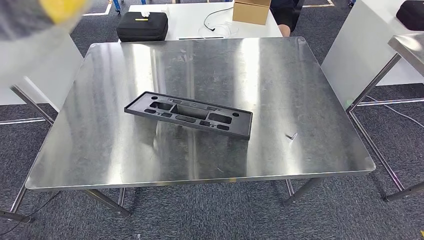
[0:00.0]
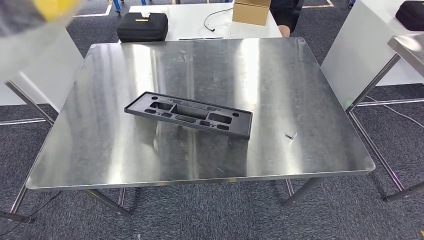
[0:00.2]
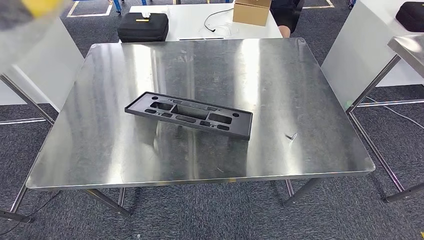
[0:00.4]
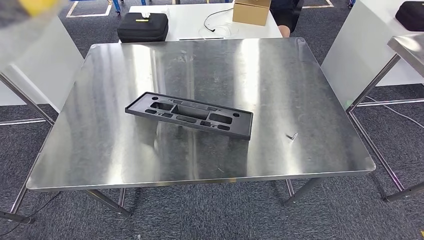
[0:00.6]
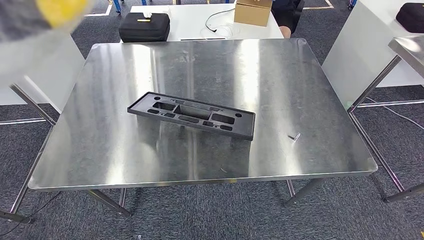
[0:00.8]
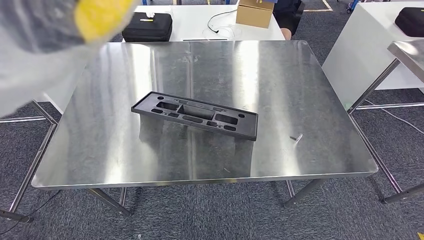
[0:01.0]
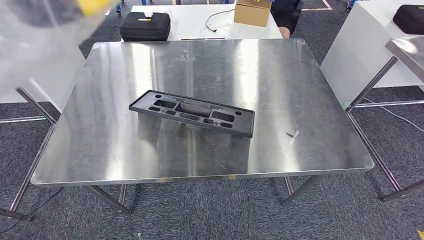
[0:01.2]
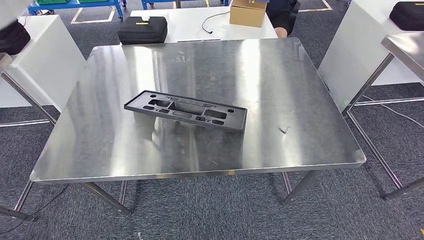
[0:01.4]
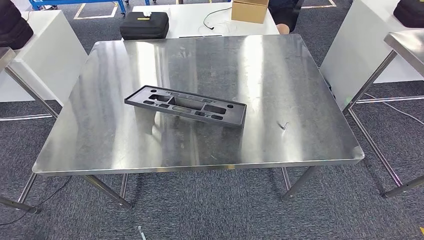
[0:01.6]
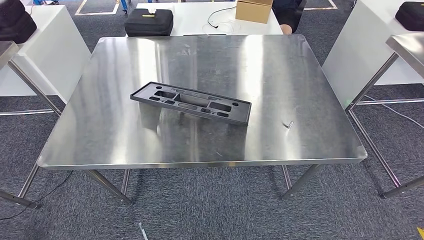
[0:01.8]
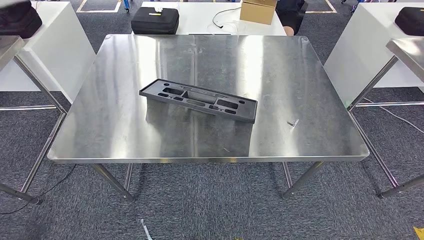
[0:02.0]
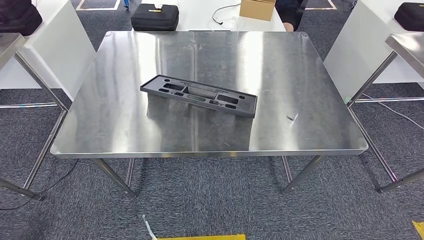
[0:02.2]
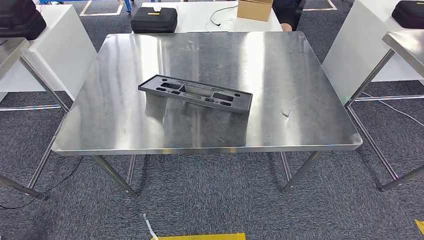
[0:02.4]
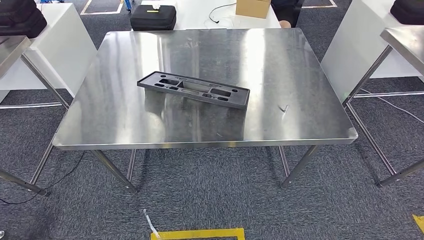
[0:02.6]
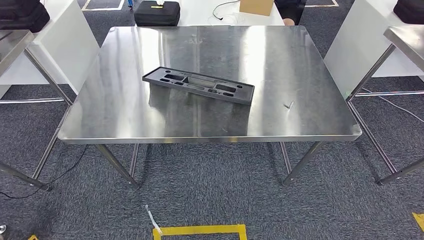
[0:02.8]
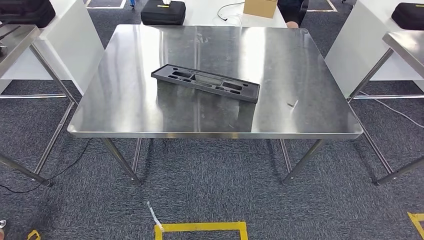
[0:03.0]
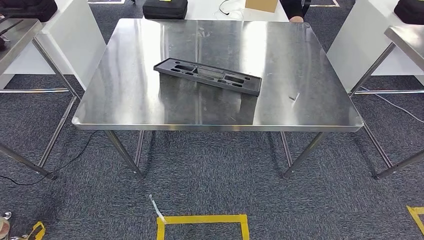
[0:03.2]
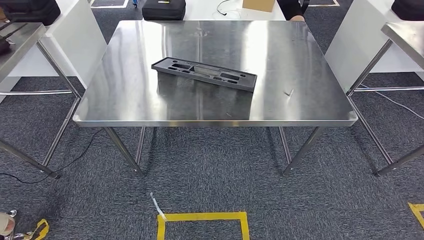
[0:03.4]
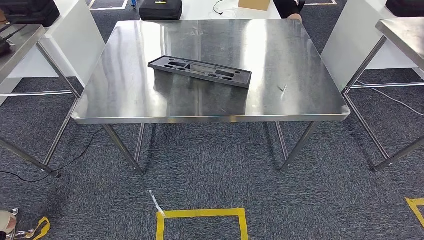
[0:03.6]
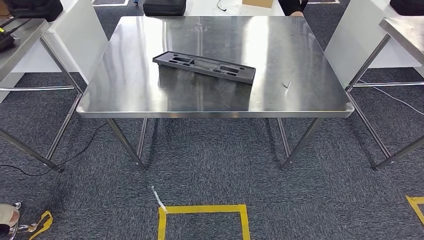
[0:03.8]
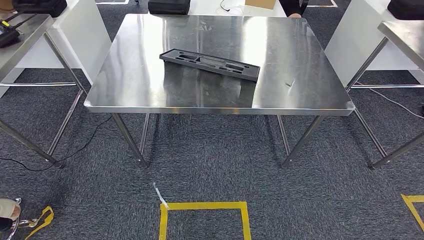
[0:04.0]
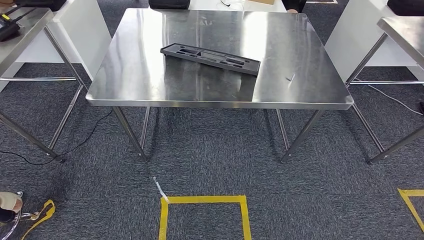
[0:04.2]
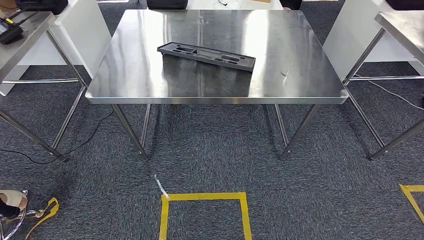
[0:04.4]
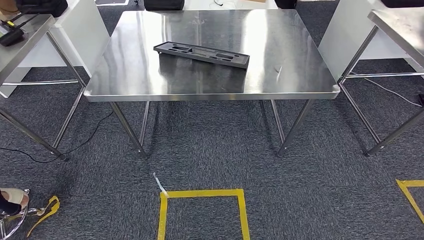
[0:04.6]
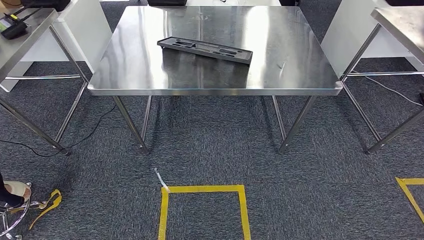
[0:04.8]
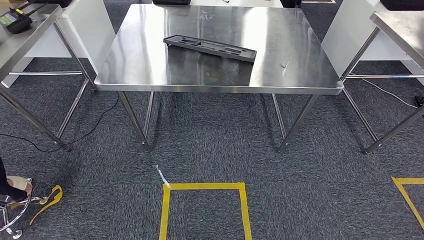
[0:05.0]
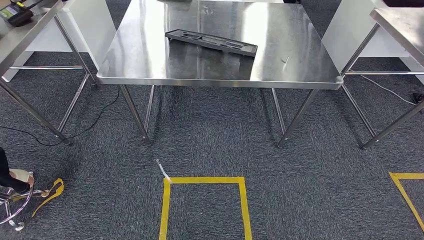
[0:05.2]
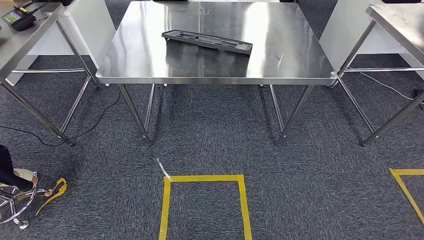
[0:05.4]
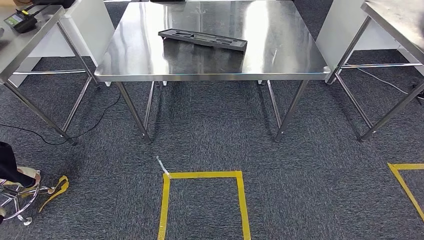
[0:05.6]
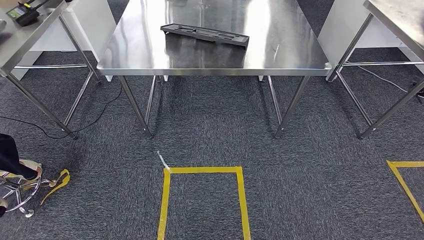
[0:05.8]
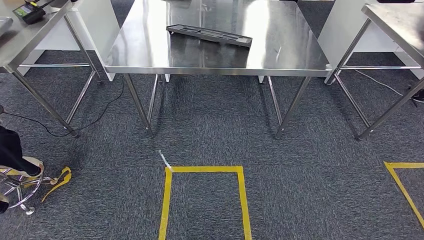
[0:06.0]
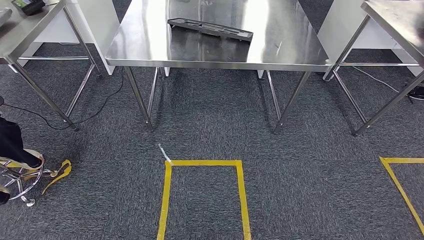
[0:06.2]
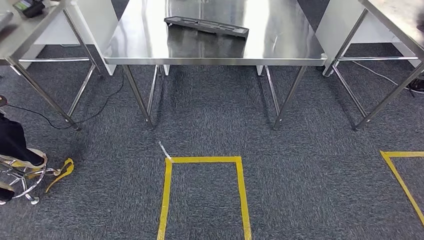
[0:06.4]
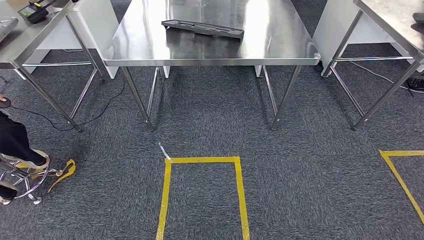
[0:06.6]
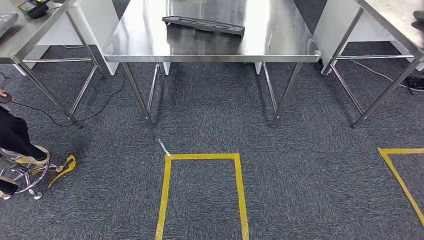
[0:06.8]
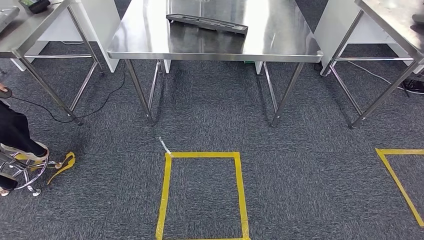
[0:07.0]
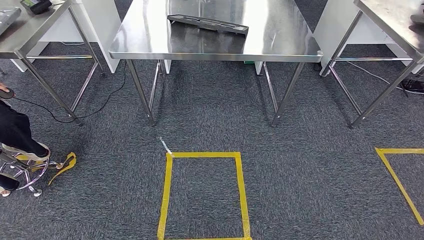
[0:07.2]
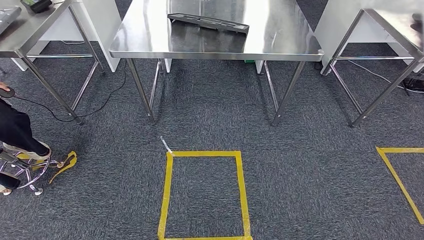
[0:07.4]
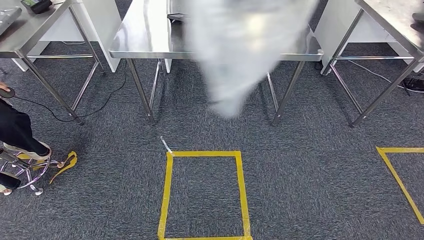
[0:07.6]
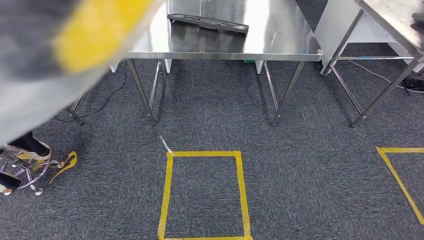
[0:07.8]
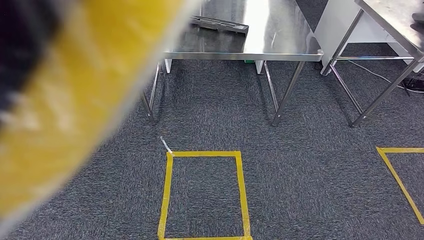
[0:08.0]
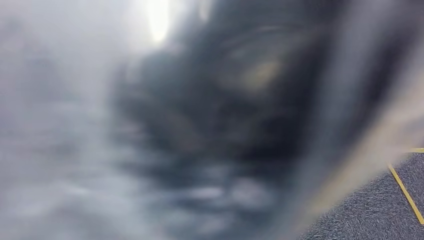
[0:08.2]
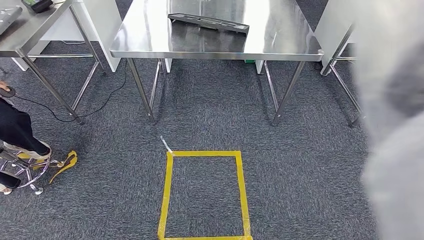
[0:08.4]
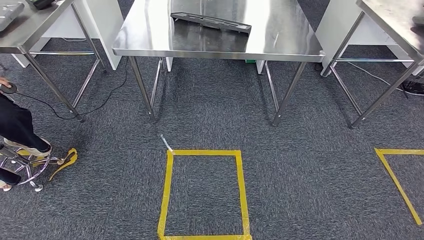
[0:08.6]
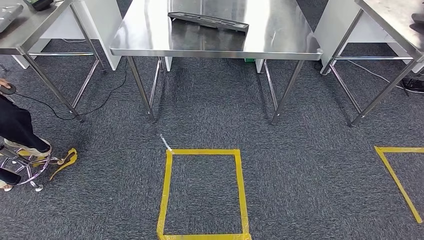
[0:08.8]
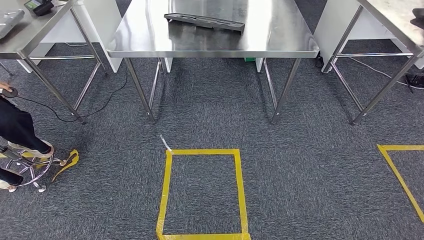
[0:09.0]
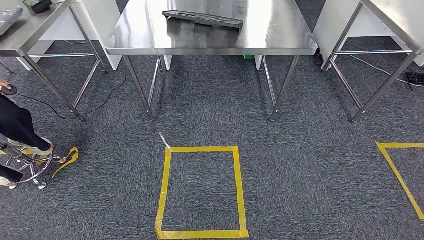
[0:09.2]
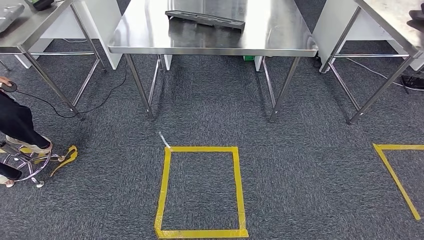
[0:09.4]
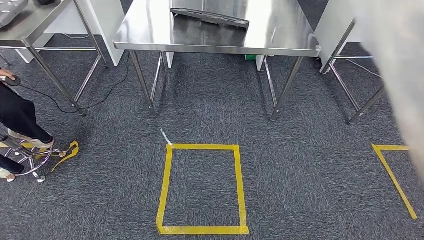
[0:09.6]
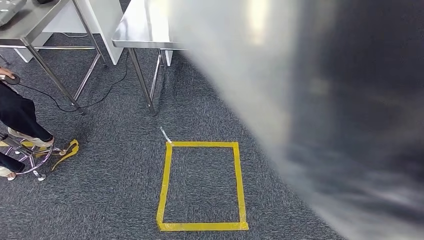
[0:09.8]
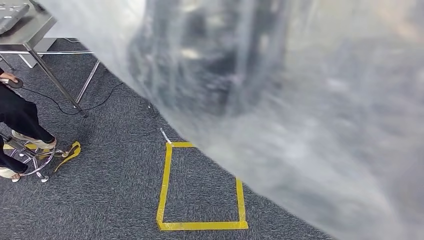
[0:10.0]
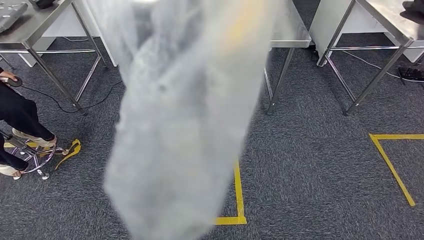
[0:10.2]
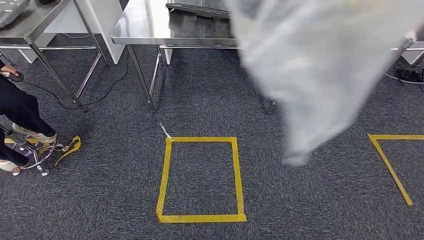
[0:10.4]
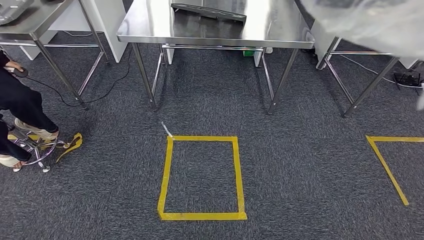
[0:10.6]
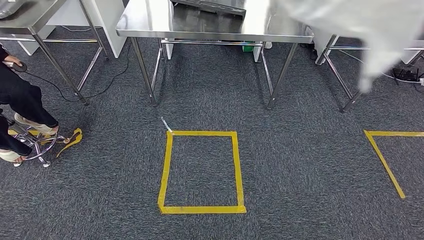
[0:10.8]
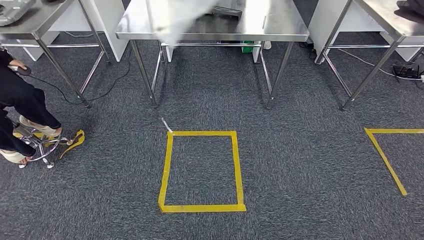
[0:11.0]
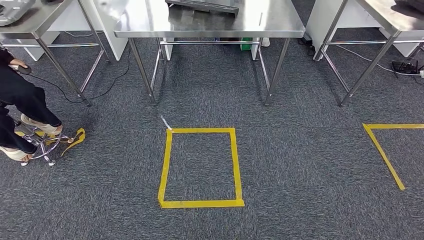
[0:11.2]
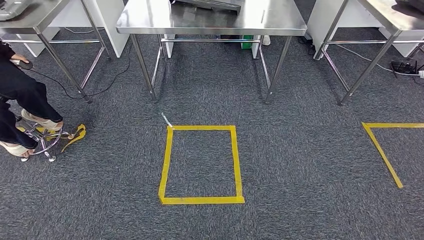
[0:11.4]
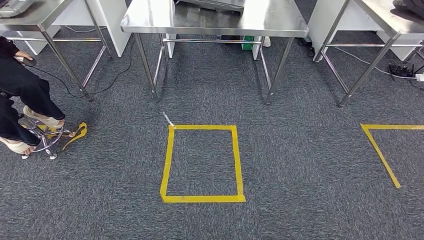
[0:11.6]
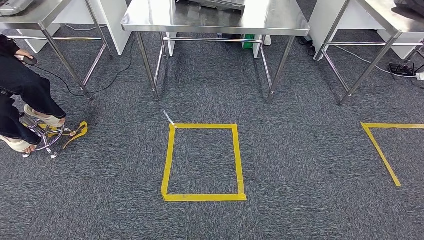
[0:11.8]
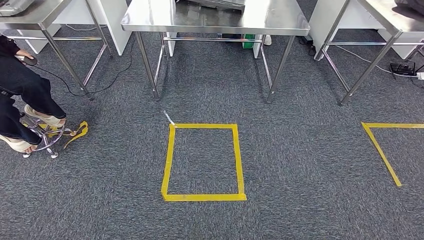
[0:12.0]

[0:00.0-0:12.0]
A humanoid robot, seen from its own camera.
Step, 0:00.0 to 0:05.2: Insert the large material into the corresponding slot on the workbench.

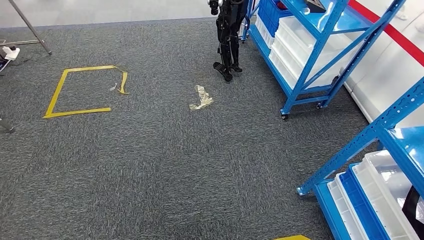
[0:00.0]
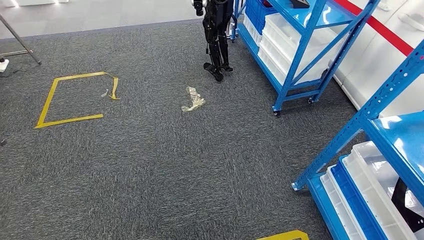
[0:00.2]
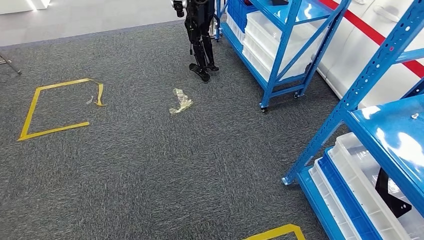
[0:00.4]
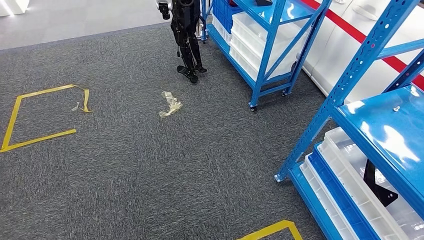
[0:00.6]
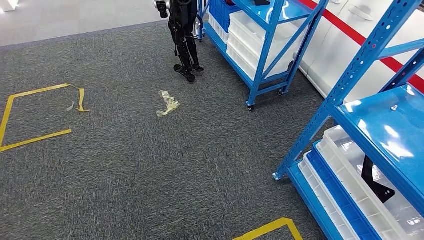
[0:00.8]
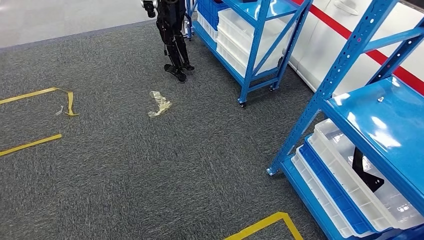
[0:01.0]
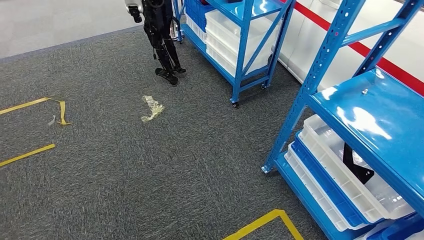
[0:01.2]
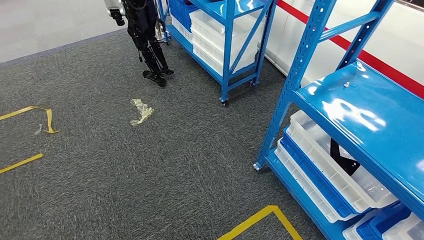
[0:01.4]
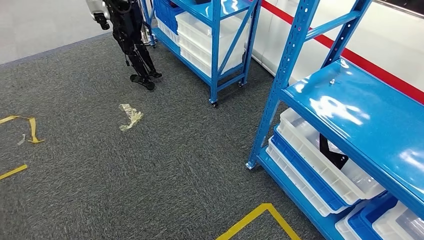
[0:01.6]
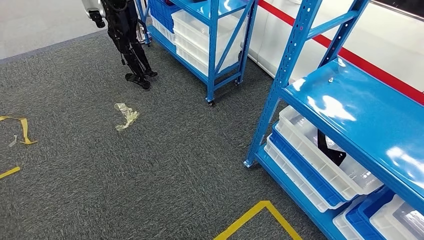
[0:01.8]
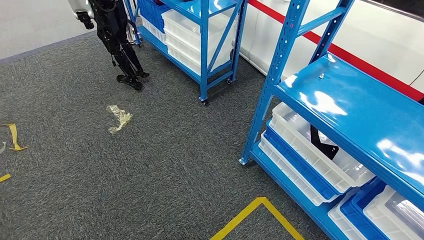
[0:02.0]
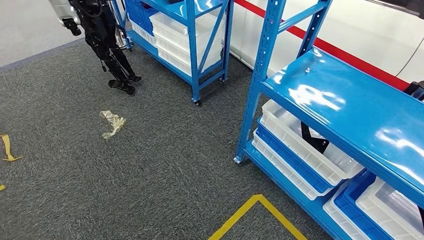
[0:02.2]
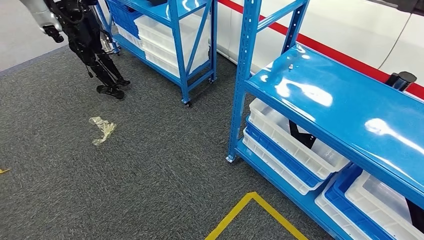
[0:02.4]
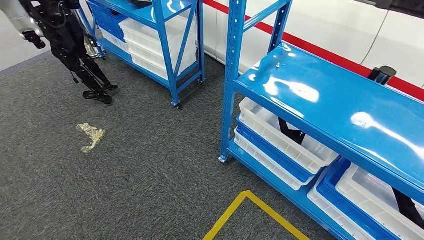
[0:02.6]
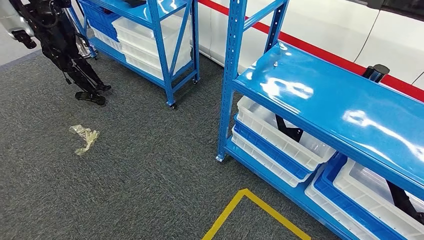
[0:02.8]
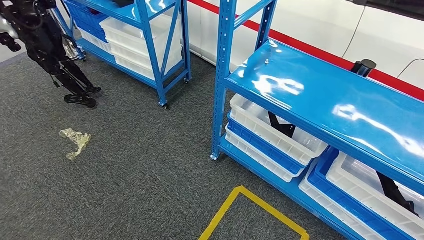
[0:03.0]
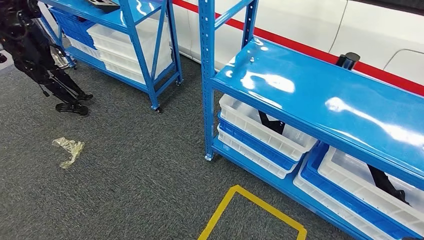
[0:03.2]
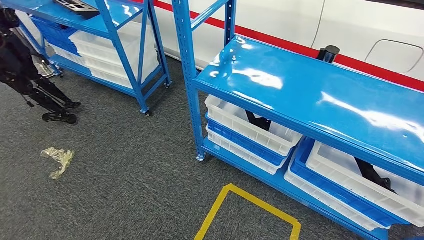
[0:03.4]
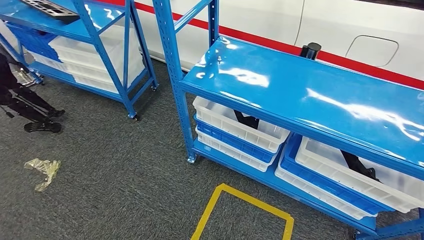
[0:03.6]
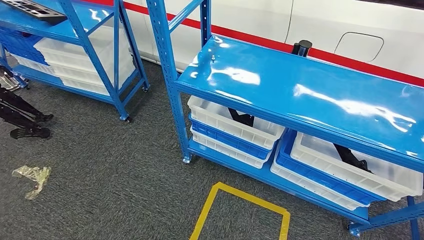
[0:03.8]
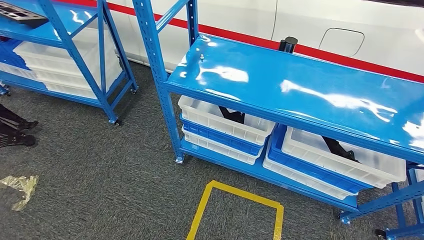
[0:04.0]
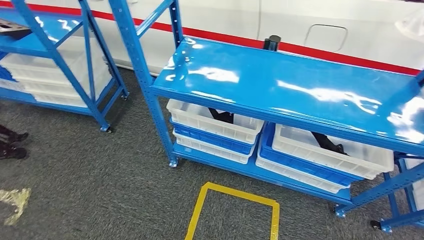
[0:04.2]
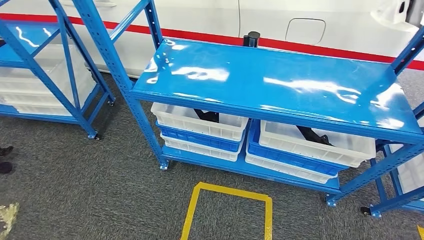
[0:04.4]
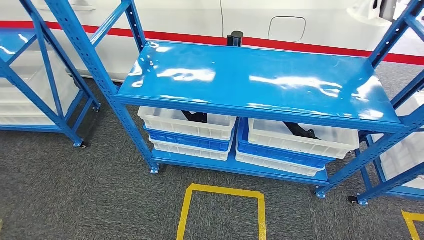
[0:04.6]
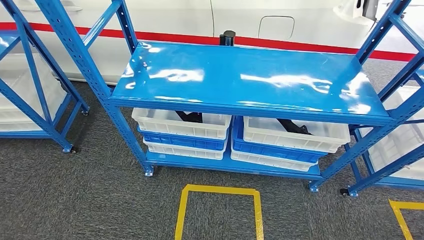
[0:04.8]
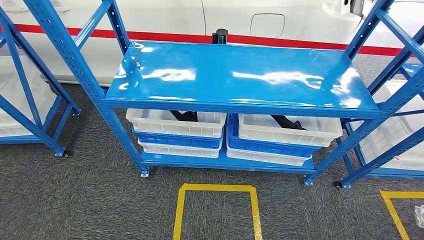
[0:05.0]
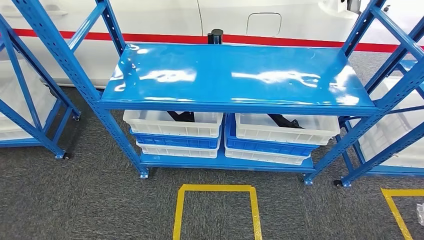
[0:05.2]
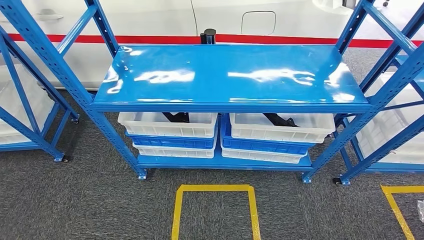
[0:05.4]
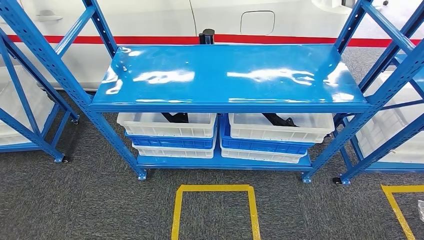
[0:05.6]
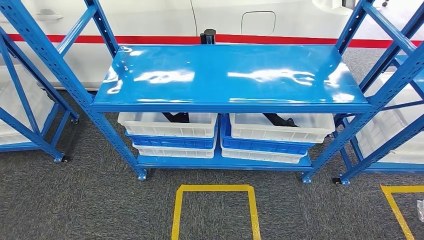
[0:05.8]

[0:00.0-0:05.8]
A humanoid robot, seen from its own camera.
Step, 0:00.0 to 0:05.8: Move to the initial position of the shelf.
